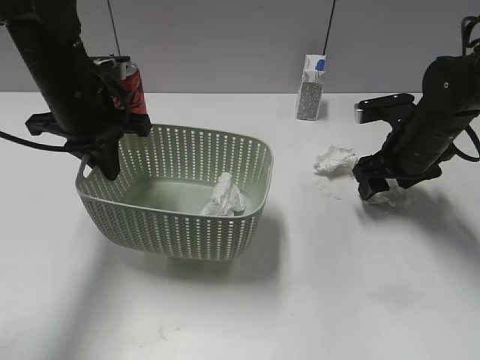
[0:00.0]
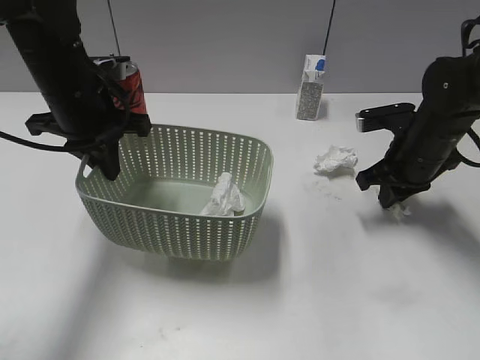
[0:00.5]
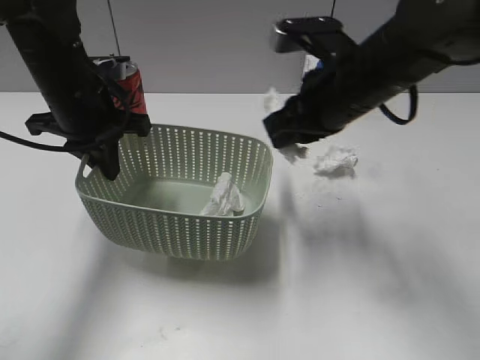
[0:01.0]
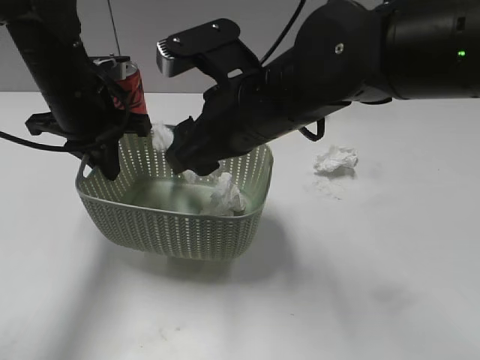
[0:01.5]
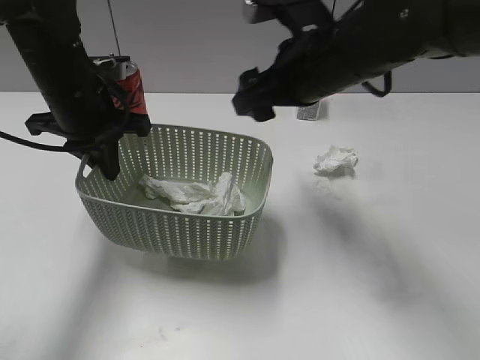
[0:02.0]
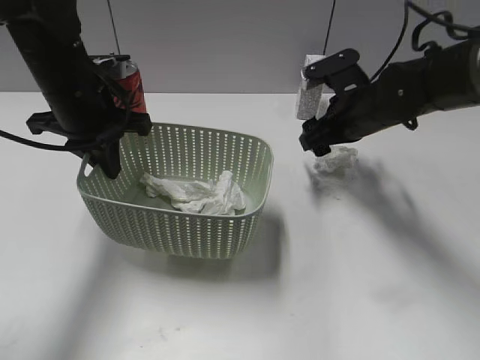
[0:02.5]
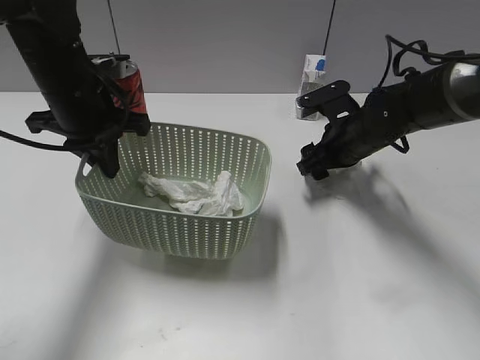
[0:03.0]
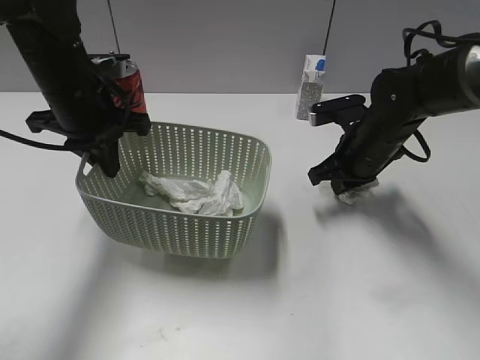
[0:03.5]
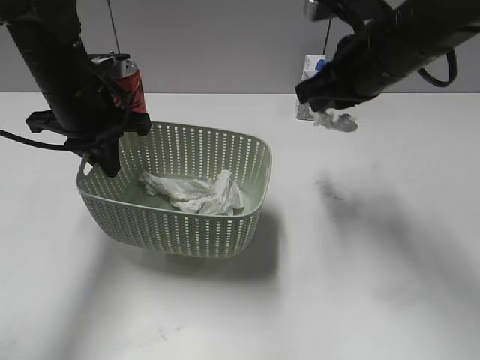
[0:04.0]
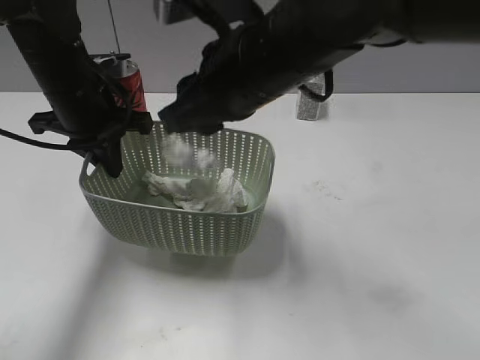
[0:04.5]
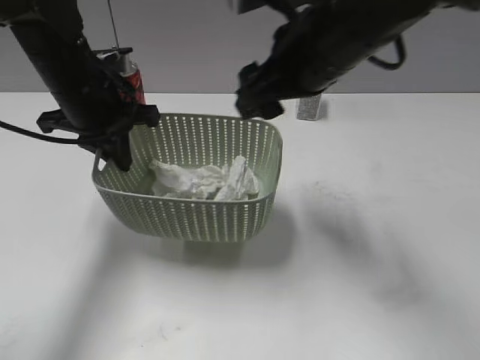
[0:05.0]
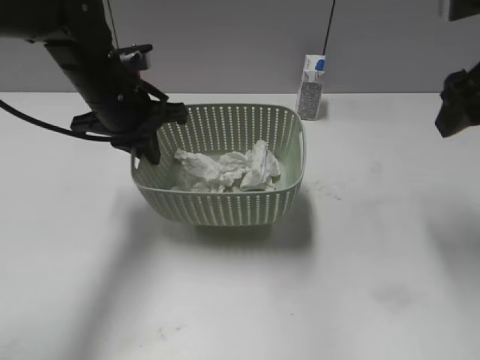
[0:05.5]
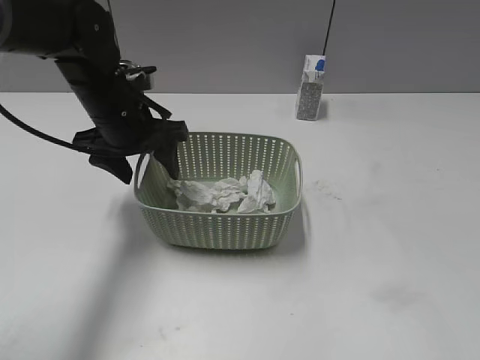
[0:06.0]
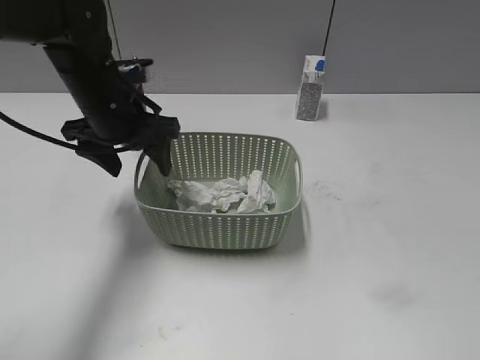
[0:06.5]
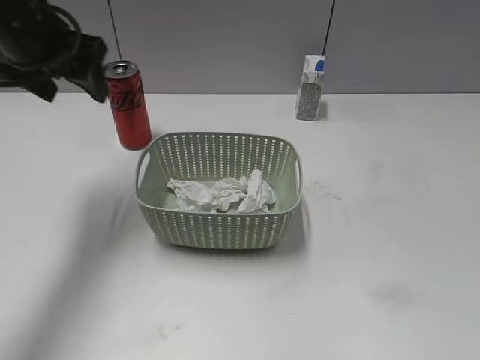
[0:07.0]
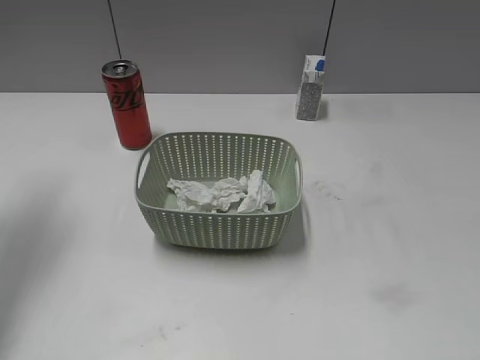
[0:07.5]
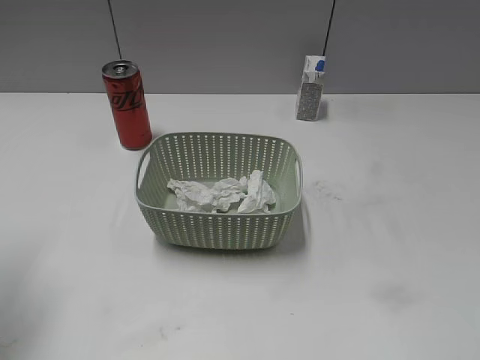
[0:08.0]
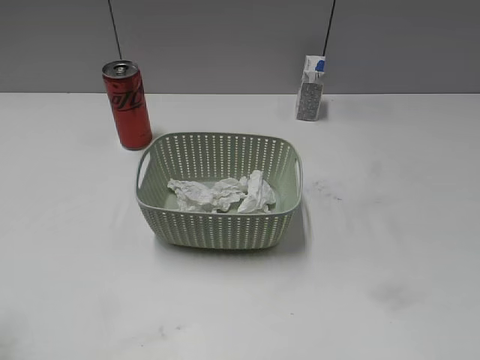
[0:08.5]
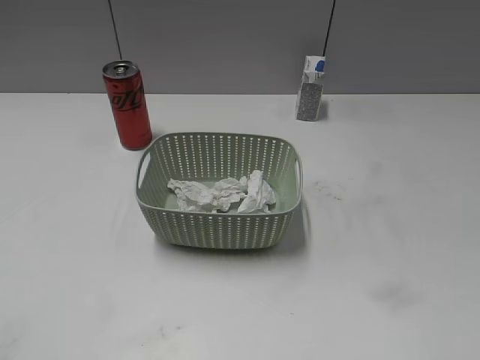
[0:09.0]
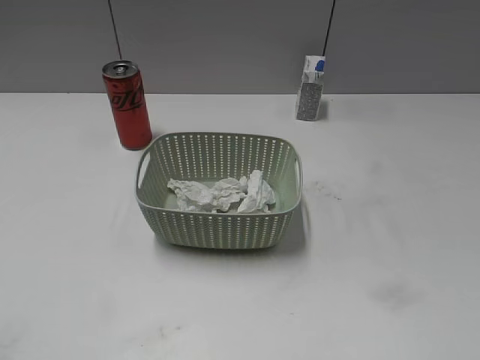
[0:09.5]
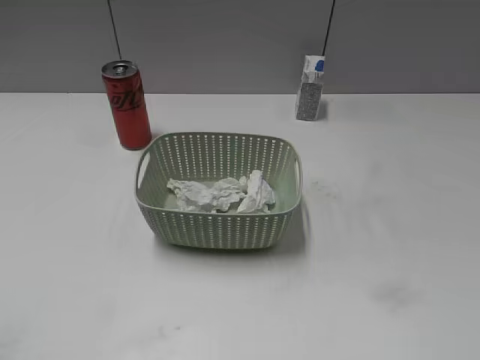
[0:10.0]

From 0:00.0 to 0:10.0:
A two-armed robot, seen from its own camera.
Step, from 0:01.0 to 0:01.5: Place the waste paper in the basket with right gripper.
Step, from 0:02.0 to 0:03.5: Grasp the waste paper with right gripper.
Step, from 0:04.0 to 0:04.5: Place the waste paper in the basket with right gripper.
Step, from 0:05.0 to 0:06.0: Place the basket on the table with left gripper.
From 0:00.0 to 0:02.0: The right gripper travels to the left and upward by roughly 20 cm, and closes, then reopens.
From 0:02.0 to 0:04.0: The right gripper heads to the right, covering about 5 cm, travels downward and back again, some 15 cm each way, and closes its fingers.
From 0:04.0 to 0:06.0: The left gripper opens up. Meanwhile the right gripper moves backward and to the right, approximately 20 cm, and opens up.
From 0:06.0 to 0:08.0: The right gripper shifts approximately 15 cm backward; the left gripper heads to the left, backward and upward, covering some 25 cm.
From 0:08.0 to 0:10.0: The left gripper shifts approximately 25 cm backward.
